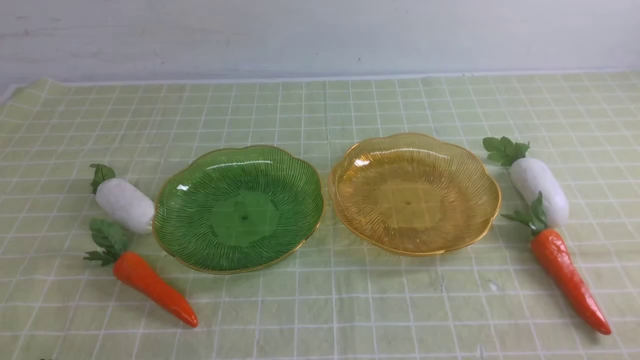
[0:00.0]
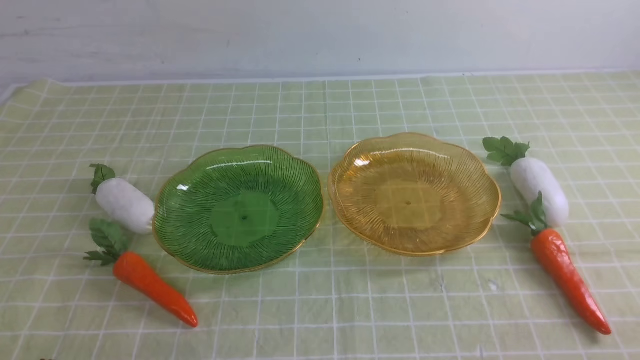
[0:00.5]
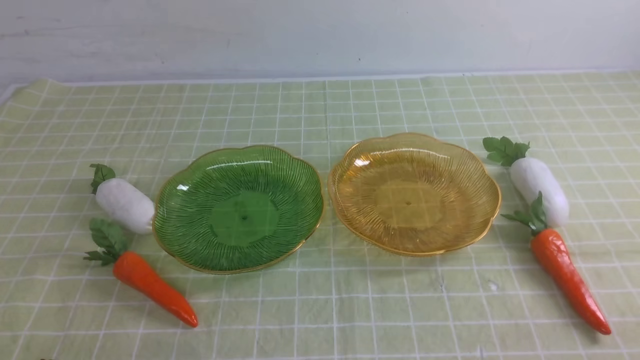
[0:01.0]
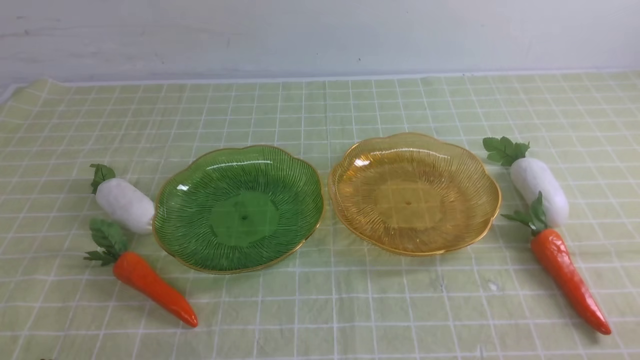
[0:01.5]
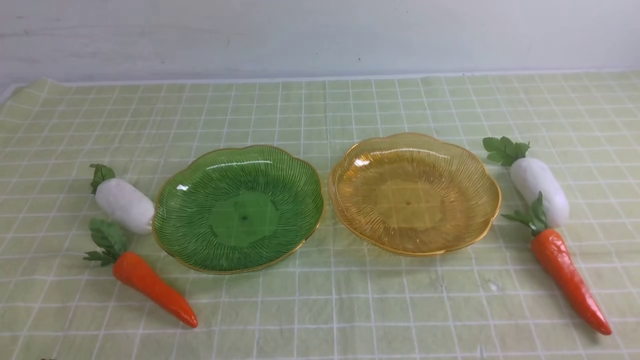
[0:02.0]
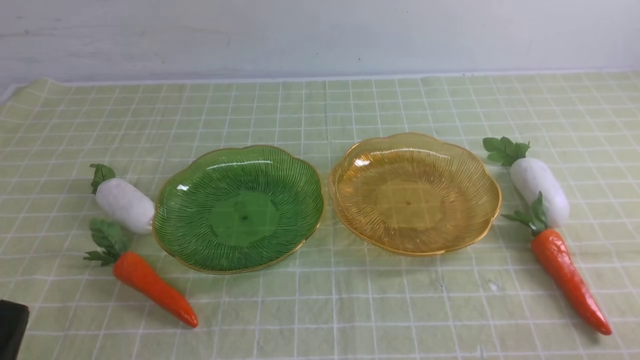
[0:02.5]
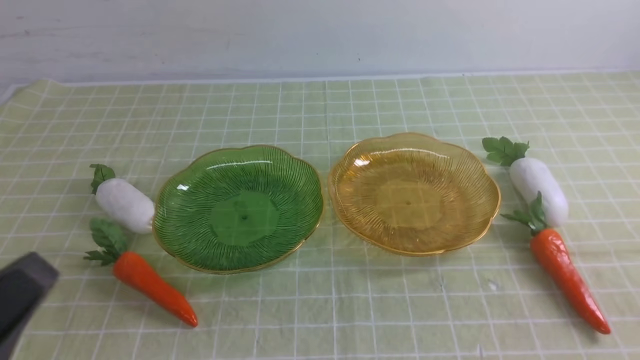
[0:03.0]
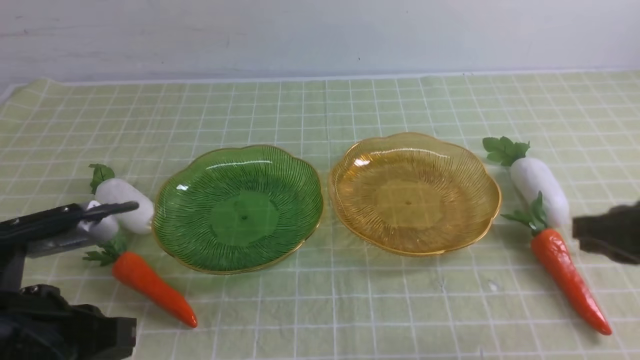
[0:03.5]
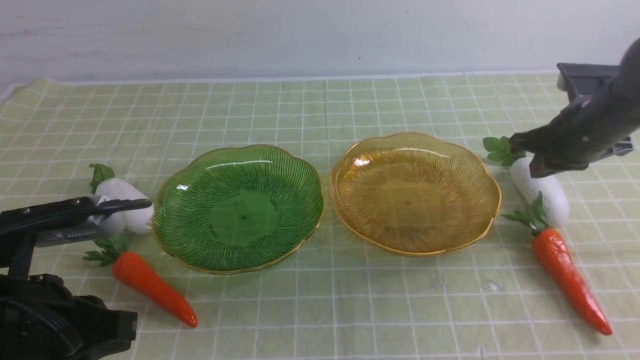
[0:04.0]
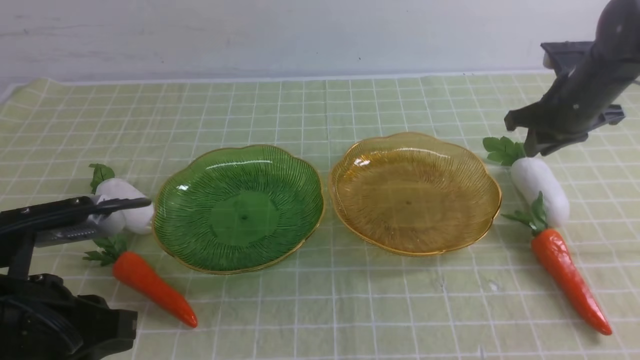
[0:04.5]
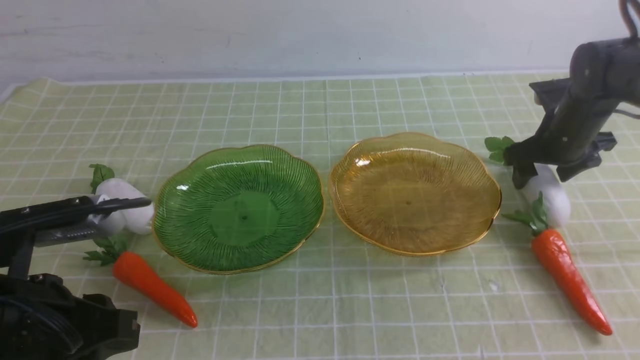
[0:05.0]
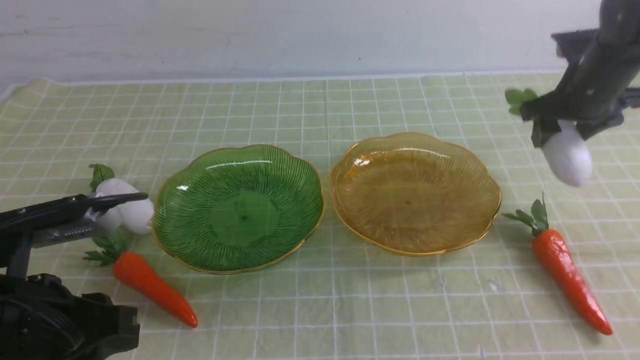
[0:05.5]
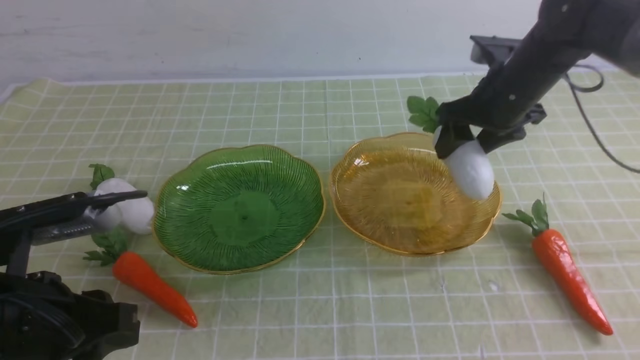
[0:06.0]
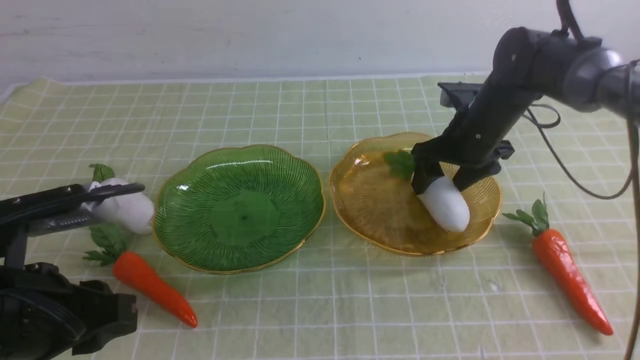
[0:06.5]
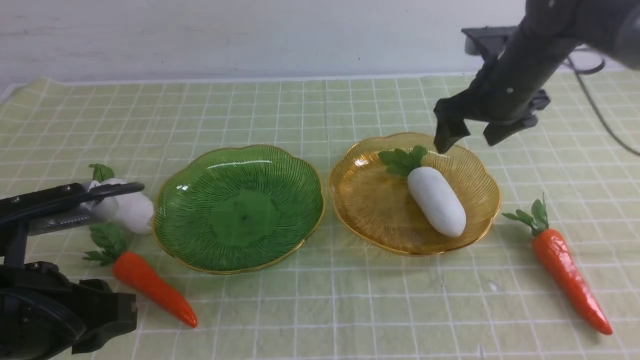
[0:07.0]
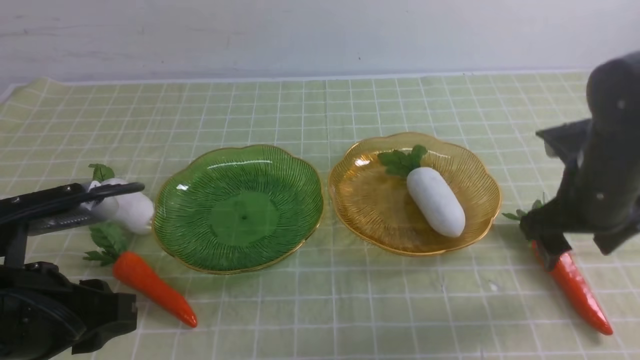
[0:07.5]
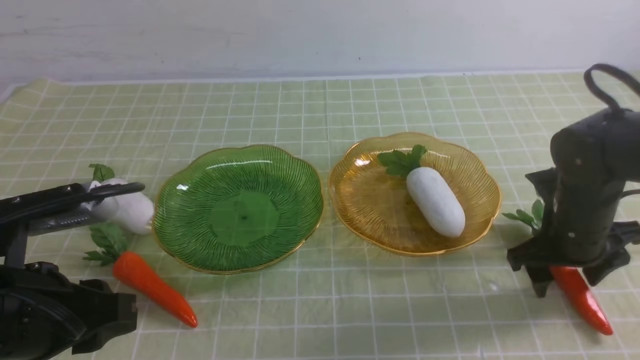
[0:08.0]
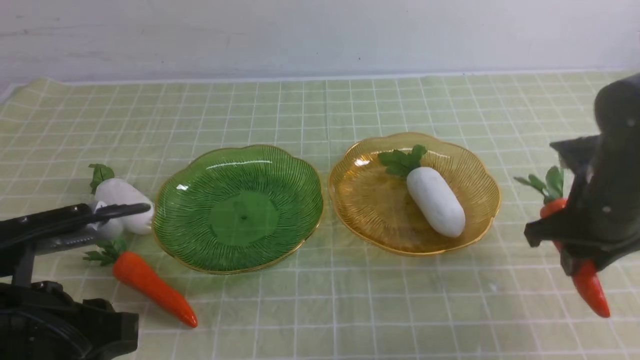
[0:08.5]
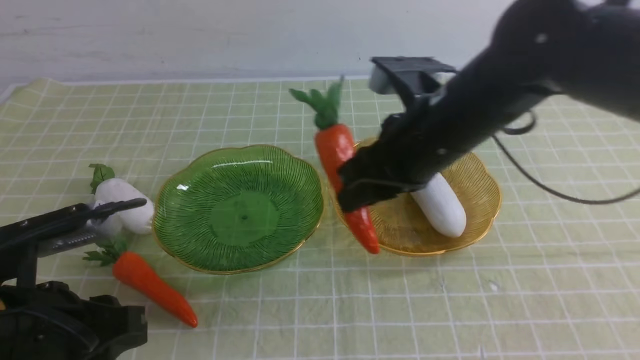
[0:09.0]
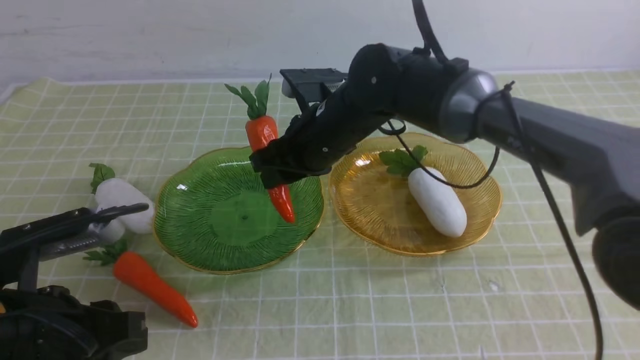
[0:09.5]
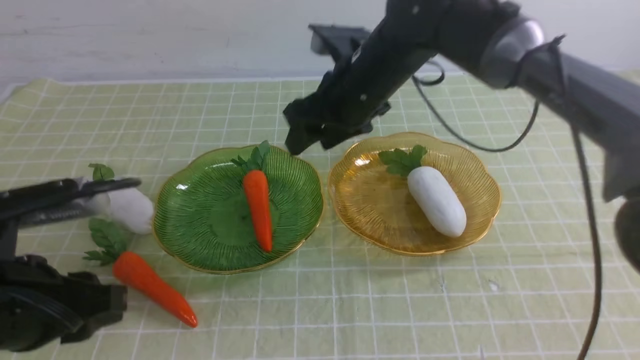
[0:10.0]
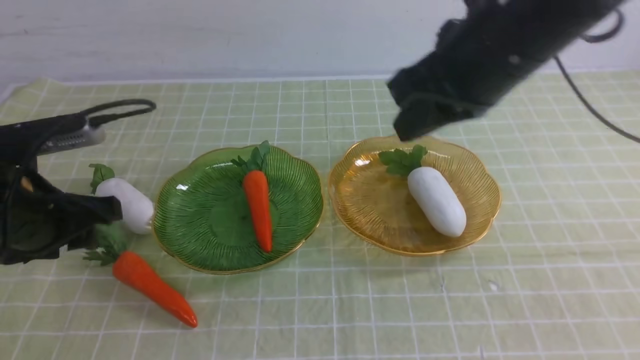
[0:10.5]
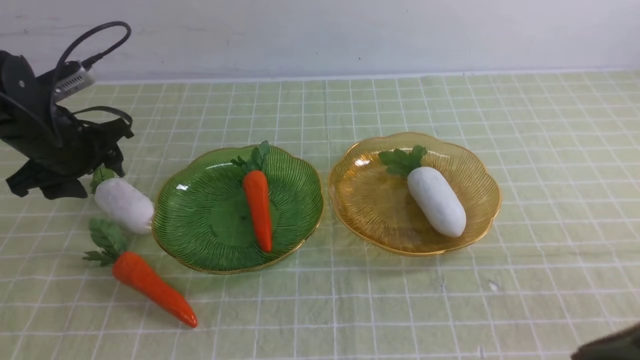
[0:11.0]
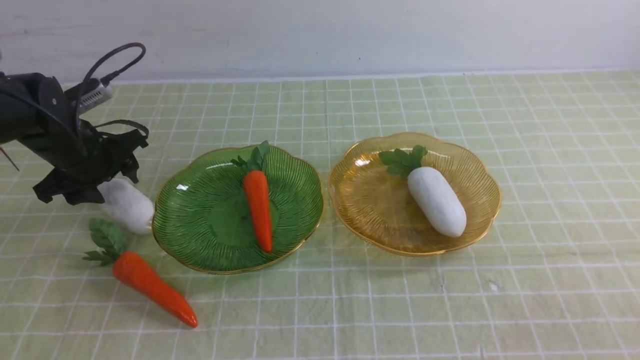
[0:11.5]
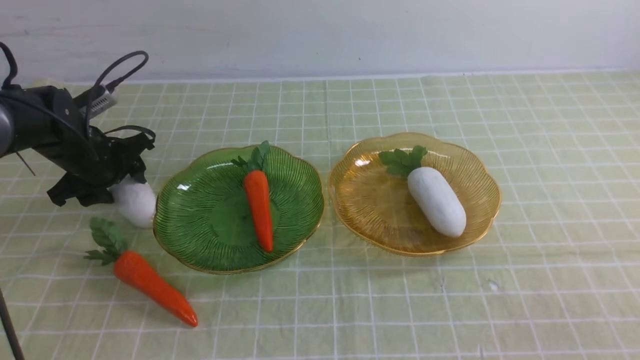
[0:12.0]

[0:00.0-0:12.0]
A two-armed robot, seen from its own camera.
Step, 0:00.0 to 0:07.0: use the right arm to grab a radish and put it into the right plate.
Step, 0:07.5 to 0:10.0: use the right arm to grab a carrot and put it into the left plate.
0:02.0 to 0:04.0: The right gripper shifts some 35 cm forward; the left gripper moves forward and upward, about 15 cm.
0:04.0 to 0:06.0: The right gripper moves to the left, roughly 10 cm, and opens its fingers; the left gripper opens its fingers.
0:06.0 to 0:08.0: The right gripper moves backward, downward and to the right, about 15 cm.
0:08.0 to 0:10.0: The right gripper heads to the left, upward and forward, covering approximately 25 cm.
0:10.0 to 0:12.0: The right gripper travels backward and to the right by roughly 40 cm, and closes its fingers. The left gripper is displaced forward by some 25 cm, and opens.

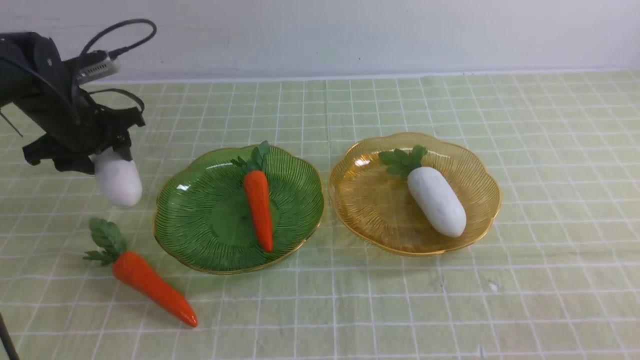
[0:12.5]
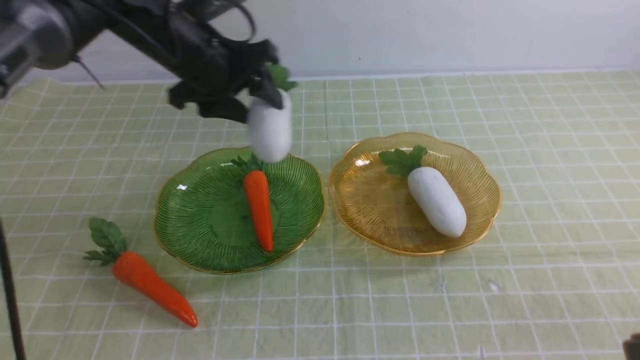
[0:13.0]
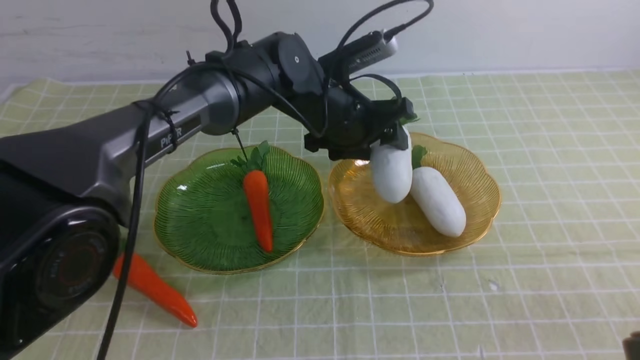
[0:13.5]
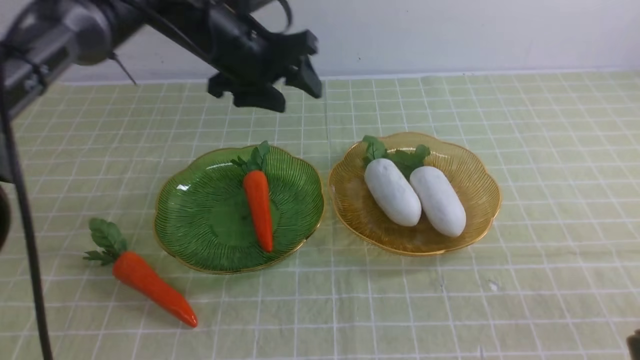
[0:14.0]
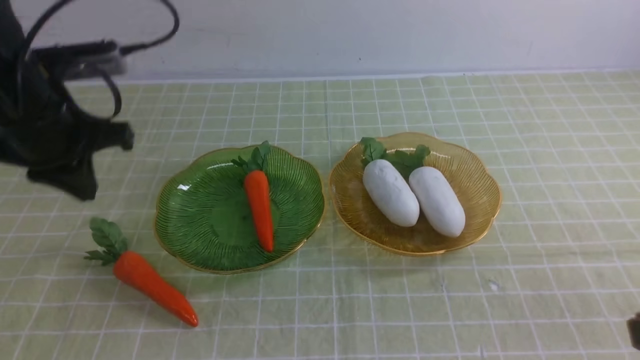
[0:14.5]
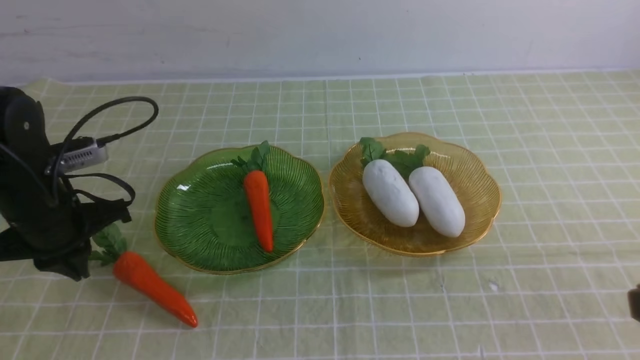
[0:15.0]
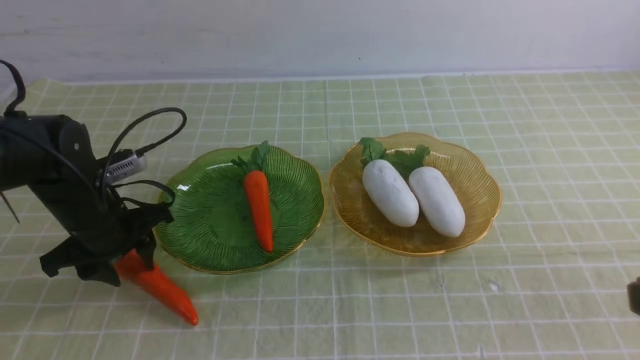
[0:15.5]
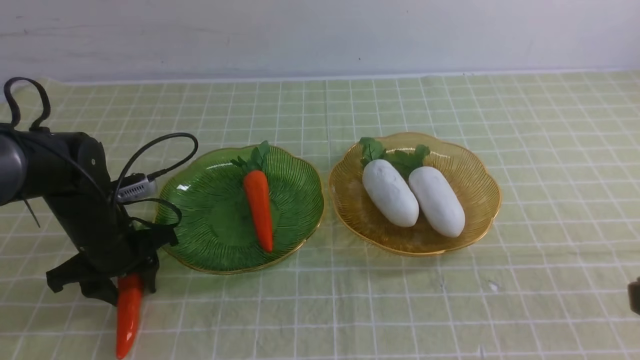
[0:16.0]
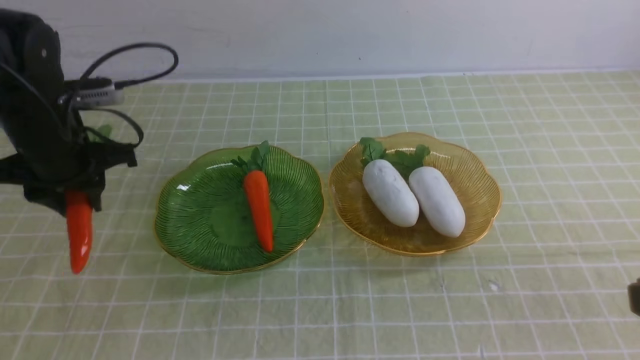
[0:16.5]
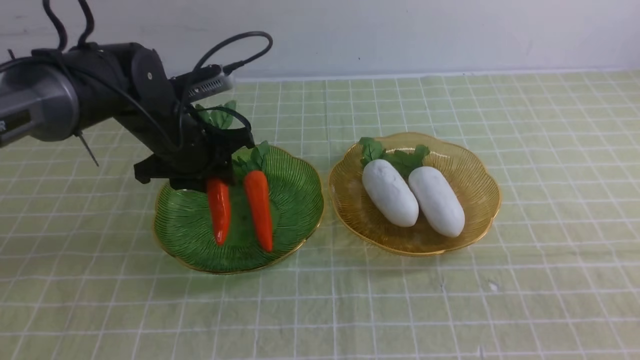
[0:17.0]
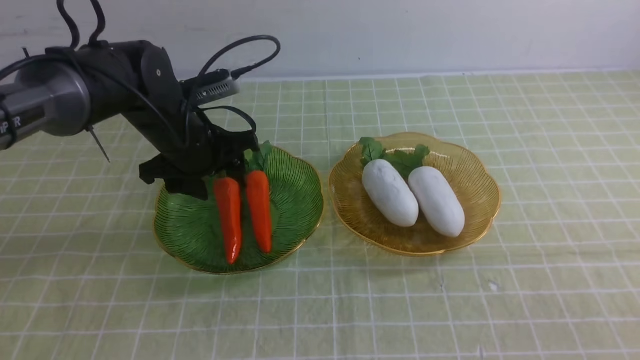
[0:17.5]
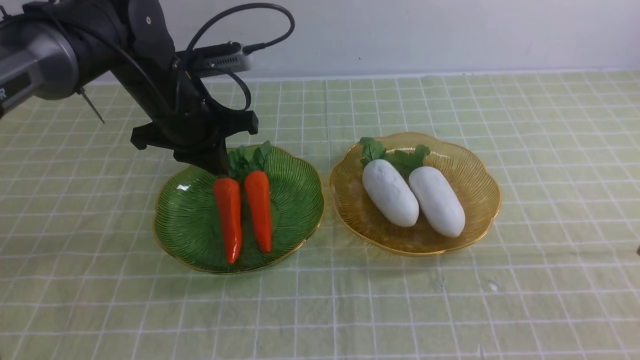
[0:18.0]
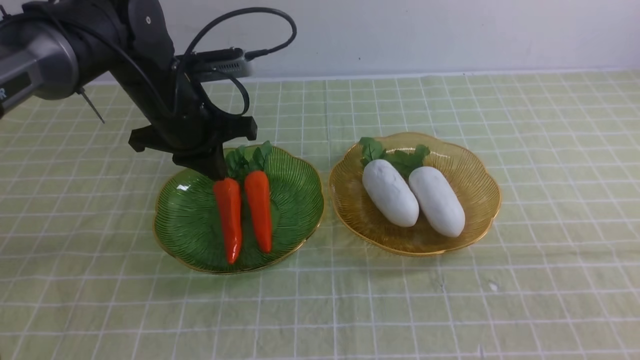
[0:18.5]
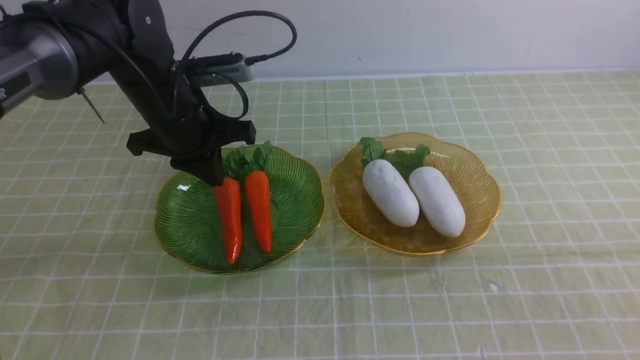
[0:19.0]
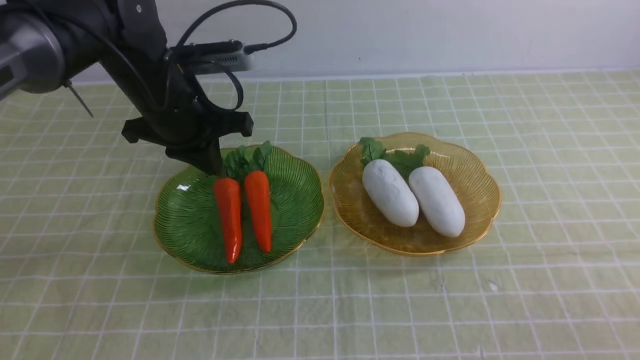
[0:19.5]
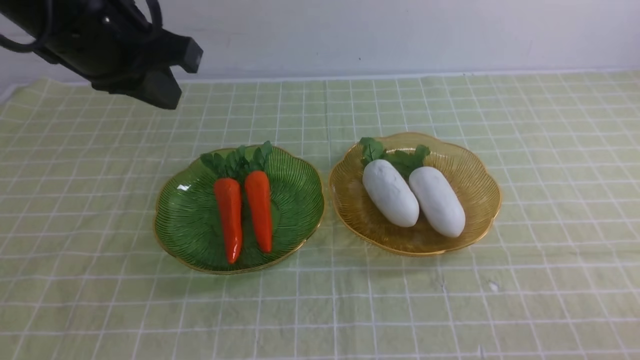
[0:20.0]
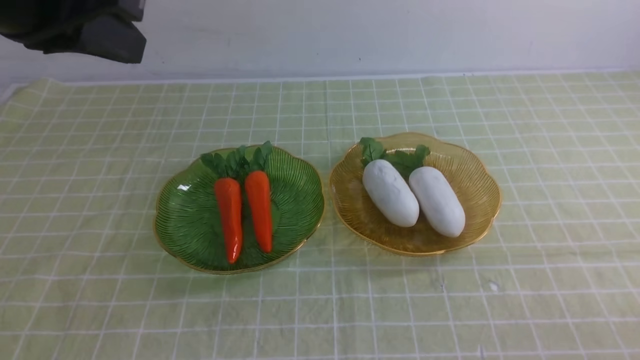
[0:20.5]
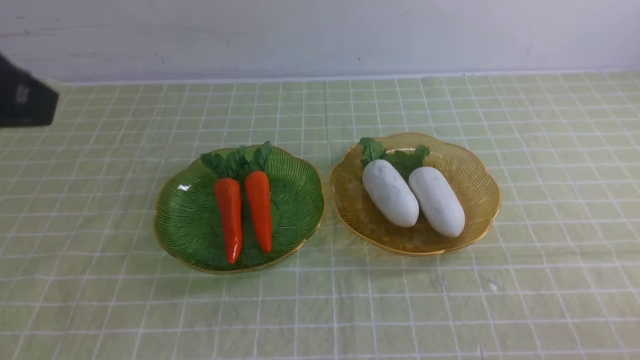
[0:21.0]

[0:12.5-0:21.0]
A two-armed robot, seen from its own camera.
Step, 0:14.5 to 0:17.5: use the left arm to grab a carrot and put it into the left plate.
0:12.5 to 0:14.5: The left gripper goes about 10 cm backward and upward, goes to the right and returns, some 30 cm each way, and closes.
0:14.5 to 0:16.5: The left gripper moves roughly 15 cm downward and comes back, and opens its fingers.
0:16.5 to 0:19.0: The right gripper shifts some 5 cm downward, while the left gripper shifts approximately 10 cm to the right, and closes.
0:19.0 to 0:21.0: The left gripper heads backward and upward, covering about 30 cm; the right gripper heads downward, covering some 10 cm.
